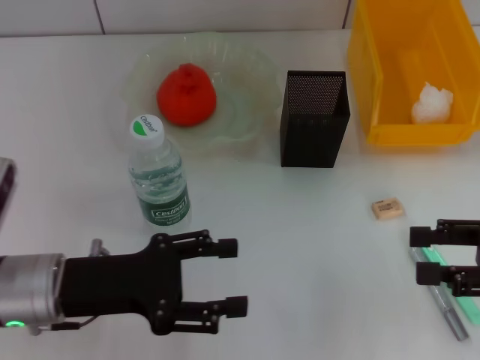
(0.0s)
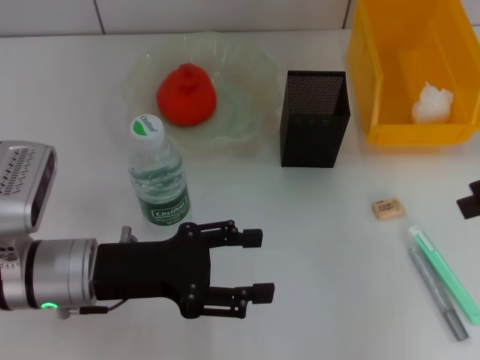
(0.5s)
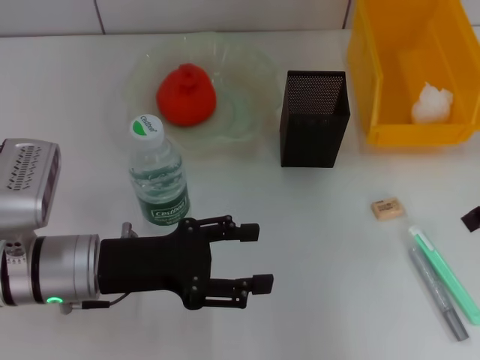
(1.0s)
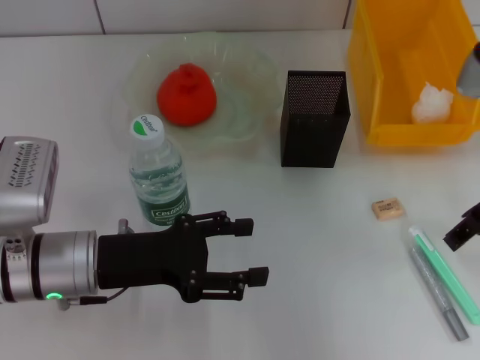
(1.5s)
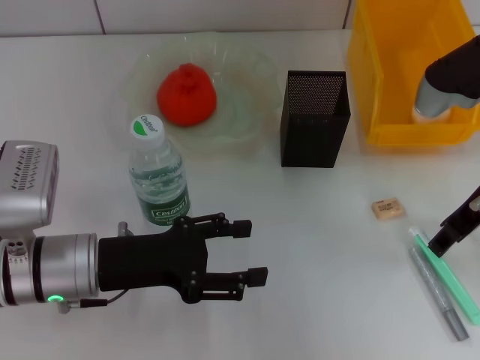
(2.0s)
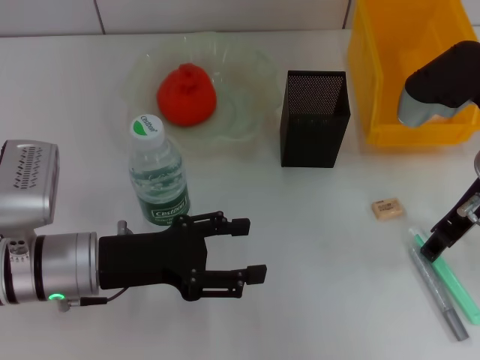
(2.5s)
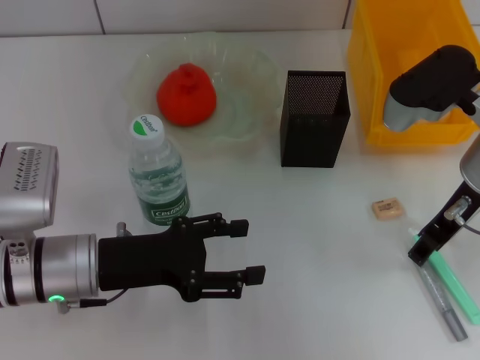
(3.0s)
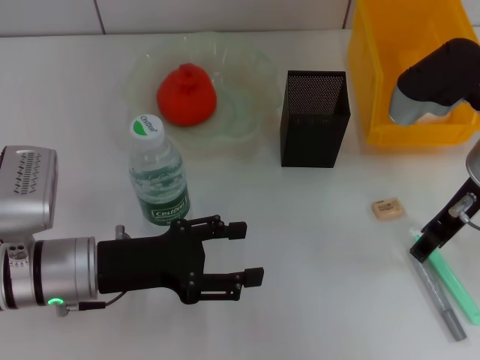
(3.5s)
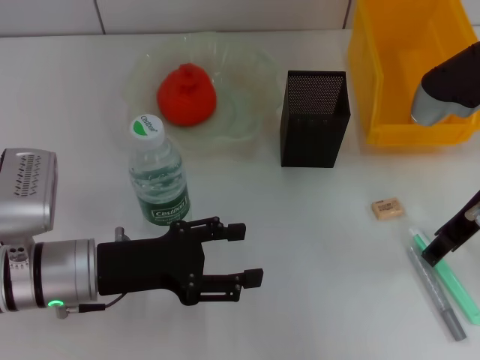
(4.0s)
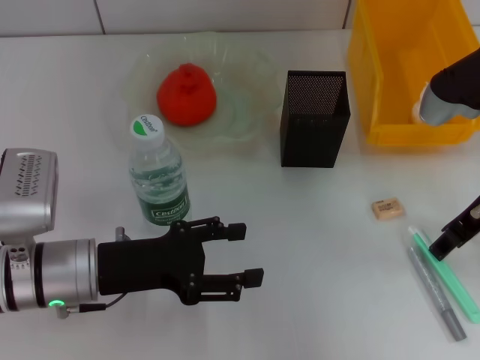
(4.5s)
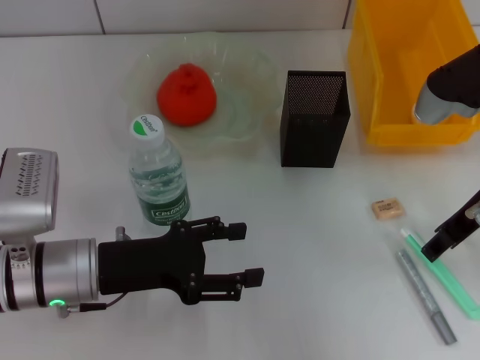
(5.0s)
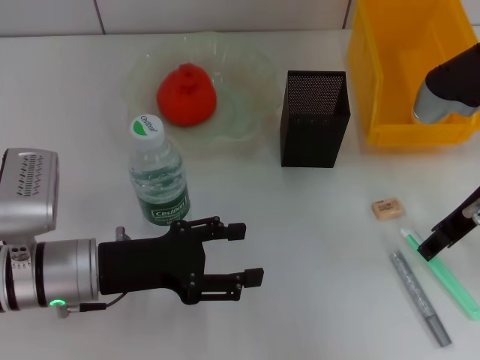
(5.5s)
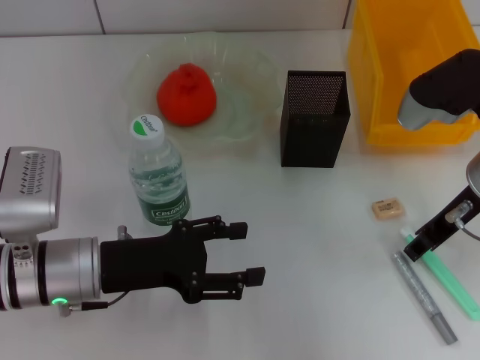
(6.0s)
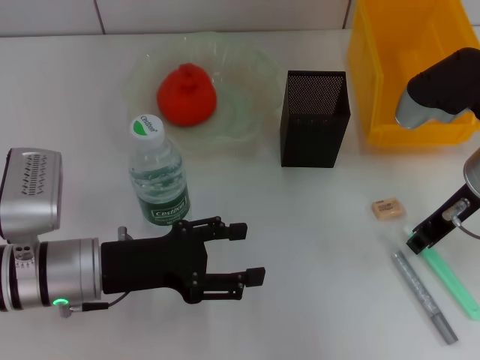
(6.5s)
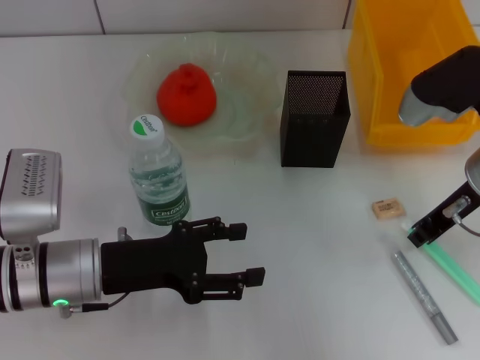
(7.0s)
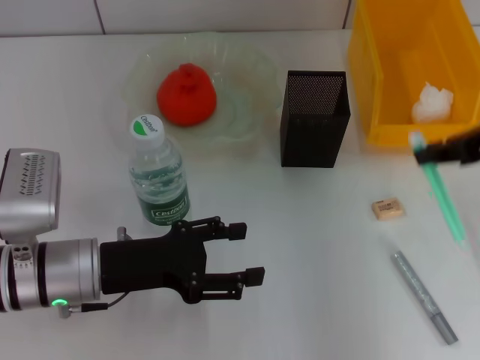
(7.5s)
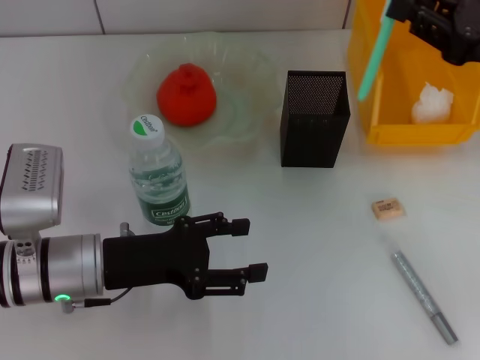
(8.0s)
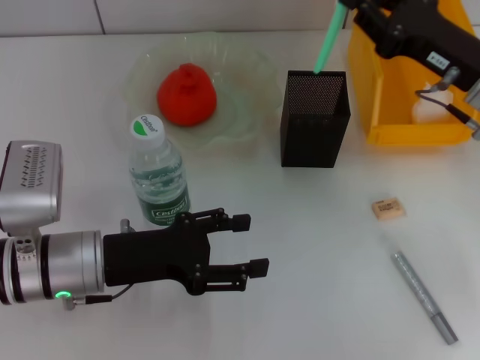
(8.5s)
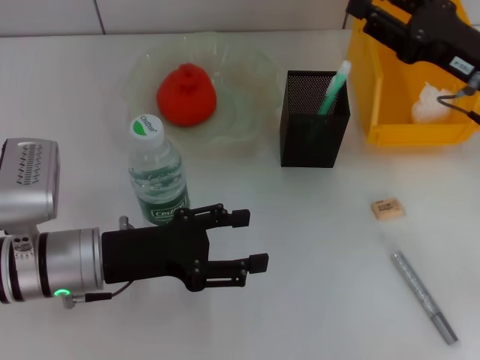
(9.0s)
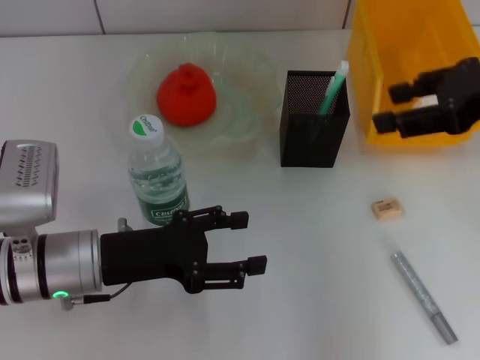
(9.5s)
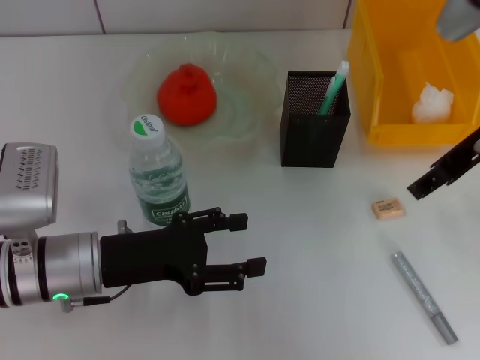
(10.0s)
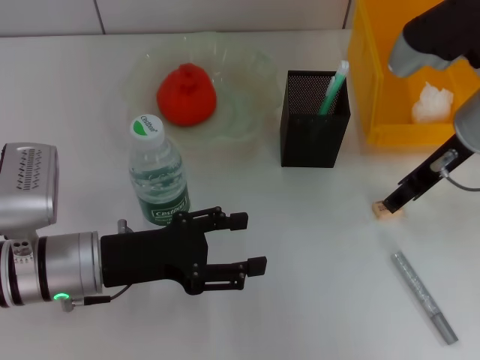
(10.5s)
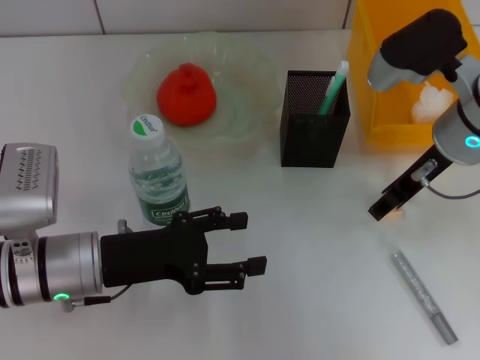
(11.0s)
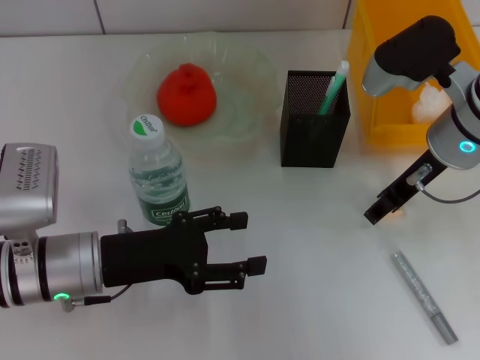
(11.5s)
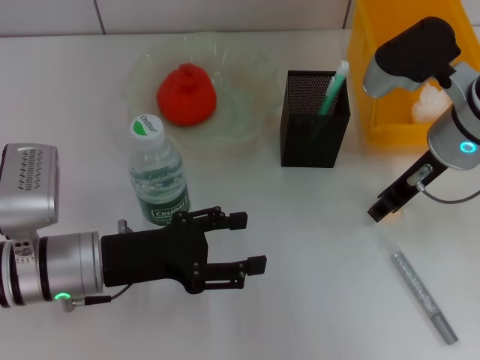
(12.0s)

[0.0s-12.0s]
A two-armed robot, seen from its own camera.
Step, 0.0s to 6.5s: Grab the blue utility knife with the right hand.
Step, 7.0s to 9.0s: Place the blue utility knife into the pen holder with the right hand.
Step, 9.5s to 11.5s: Grab the eraser with the right hand.
0.0s to 2.0s: The right gripper shifts some 15 cm to the left and forward.
2.0s to 6.0s: The grippers stay close to where they were, moving slightly.
6.0s to 8.0s: The right gripper moves to the right, approximately 10 cm, and closes up.
8.0s to 10.0s: The right gripper travels to the left by some 5 cm, and opens up.
10.0s to 12.0s: The right gripper goes about 5 cm downward.

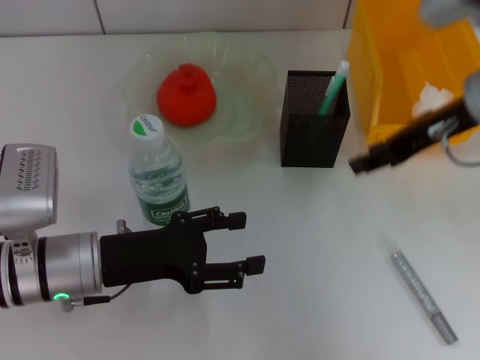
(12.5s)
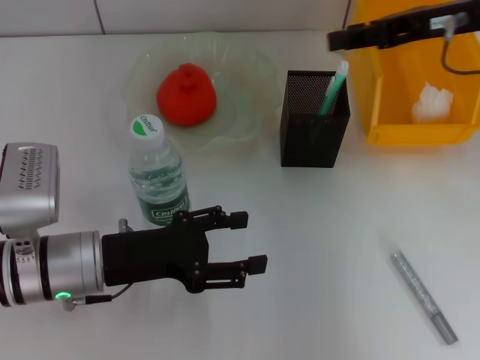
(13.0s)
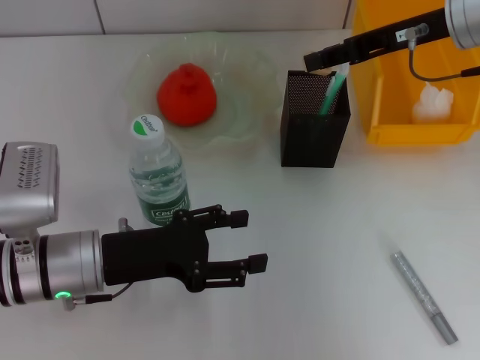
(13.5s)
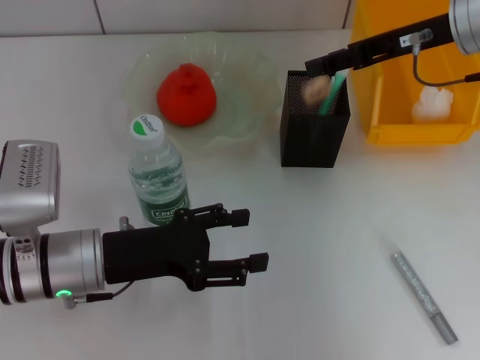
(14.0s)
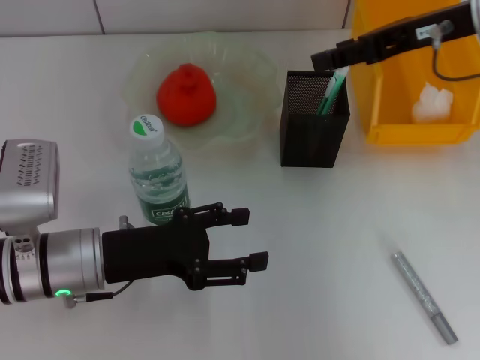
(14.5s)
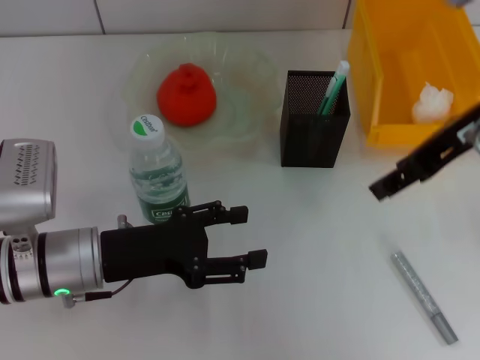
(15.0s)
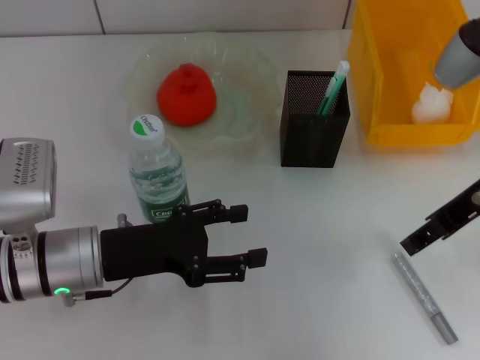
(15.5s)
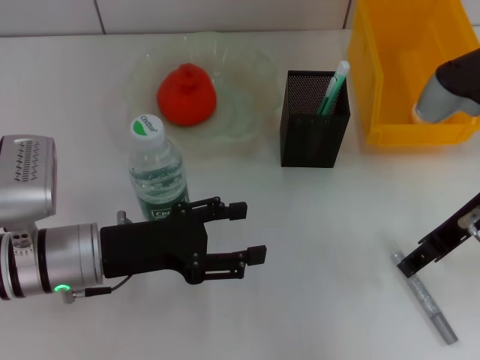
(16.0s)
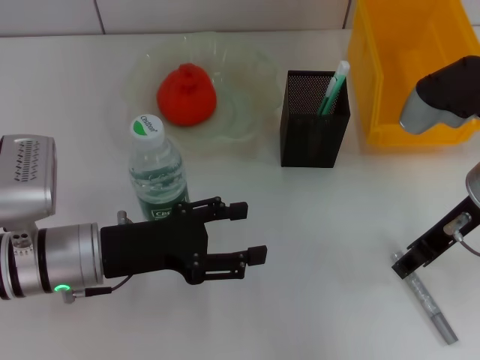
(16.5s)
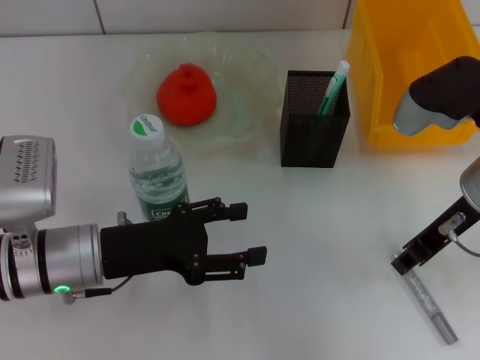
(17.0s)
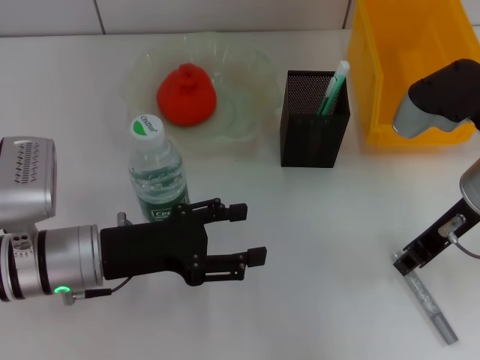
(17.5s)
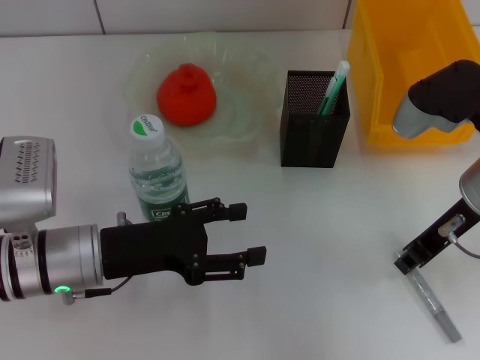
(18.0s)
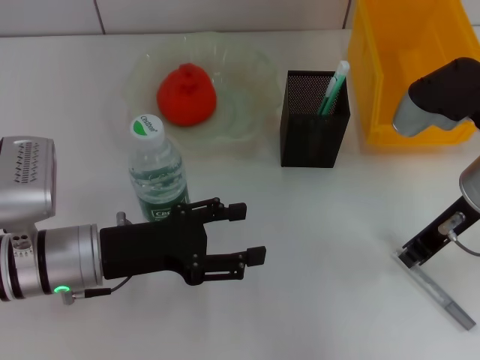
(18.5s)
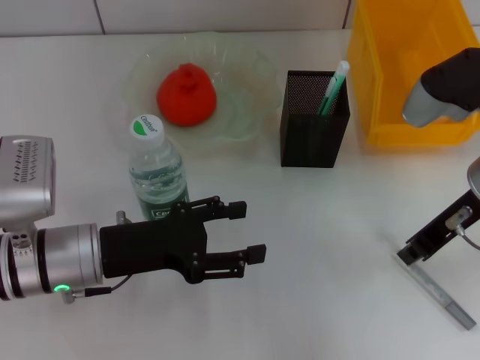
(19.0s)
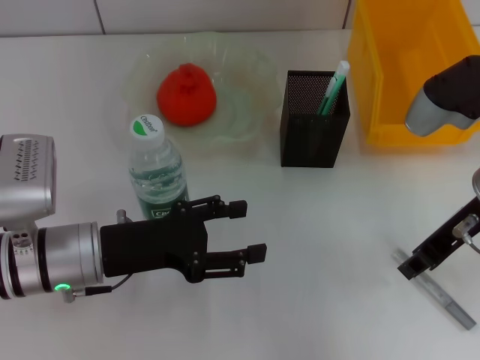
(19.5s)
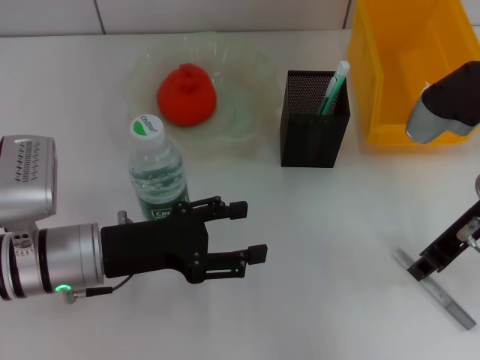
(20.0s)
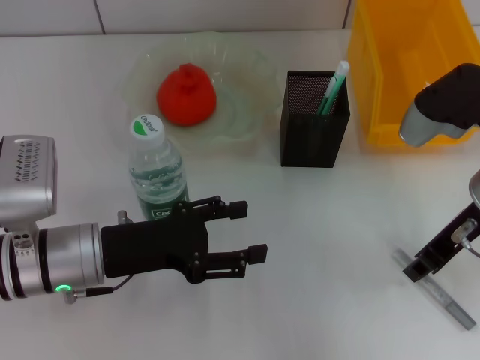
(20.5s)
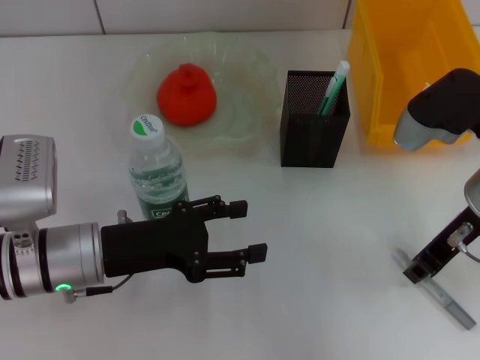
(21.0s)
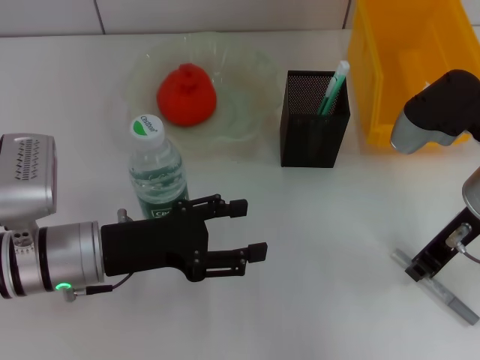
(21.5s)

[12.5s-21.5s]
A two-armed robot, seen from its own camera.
Step, 12.5s to 14.0s: Put the eraser into the pen holder with the right hand.
Step, 14.5s to 21.0s: Grab the gray glue with the right hand.
12.5s to 14.5s: The right gripper ends up roughly 5 cm from where it was.
14.5s to 17.0s: The right gripper travels downward and backward by about 10 cm, and closes up.
17.0s to 19.5s: Both grippers stay about where they are.
19.5s to 21.5s: Neither gripper changes place.

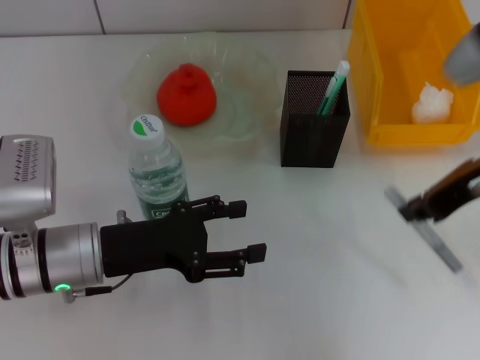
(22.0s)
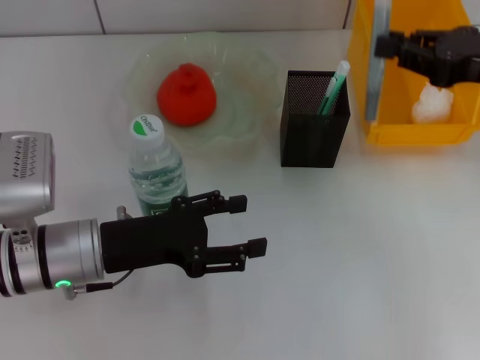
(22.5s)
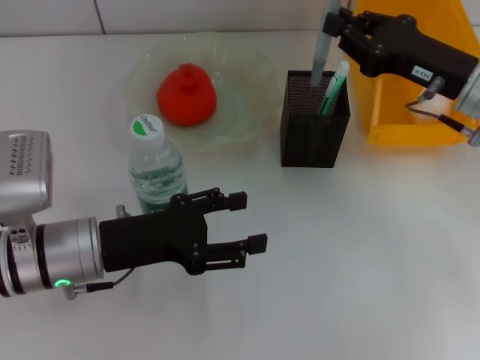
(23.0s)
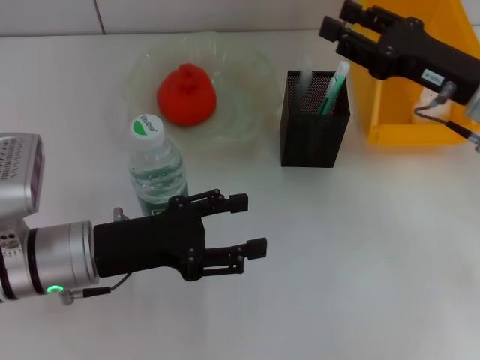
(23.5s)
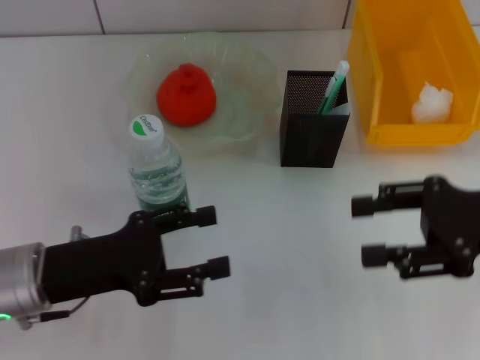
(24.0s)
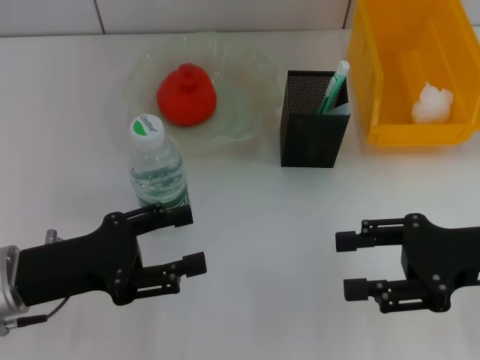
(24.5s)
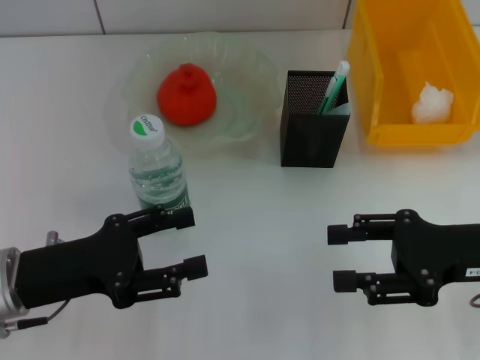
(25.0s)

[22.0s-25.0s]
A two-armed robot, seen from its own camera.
Step, 22.0s to 23.5s: Place the gray glue into the pen holder with the right hand.
22.0s to 23.5s: The right gripper goes some 5 cm downward.
23.5s to 25.0s: The left gripper travels to the left by roughly 5 cm. The right gripper heads backward, covering some 10 cm, and opens up.
